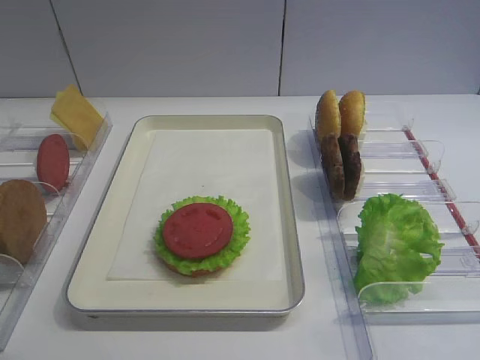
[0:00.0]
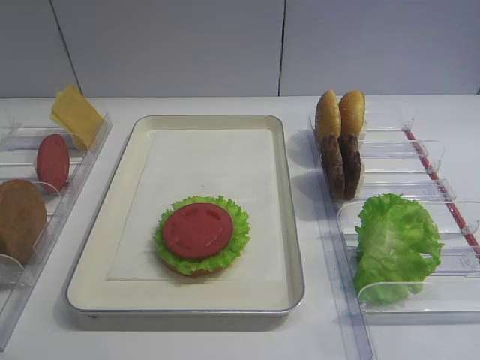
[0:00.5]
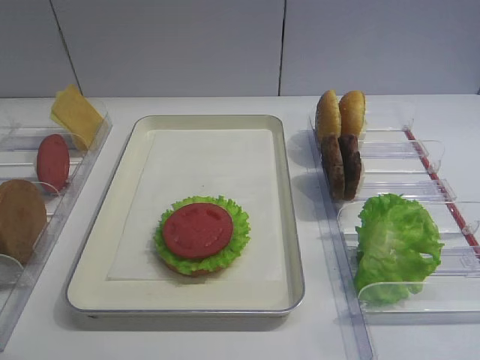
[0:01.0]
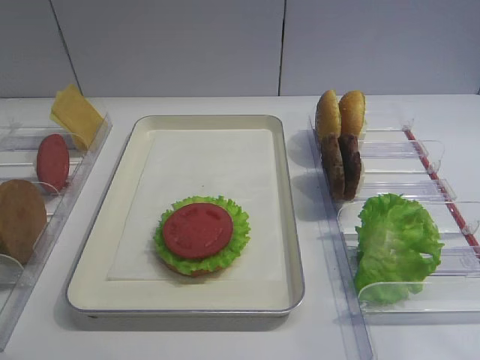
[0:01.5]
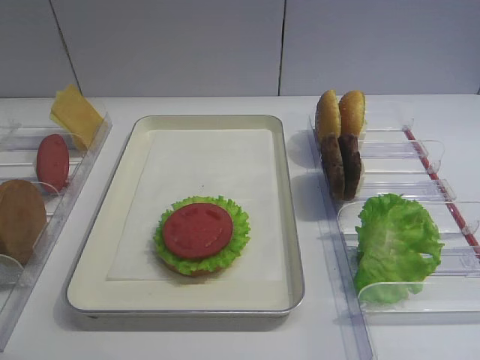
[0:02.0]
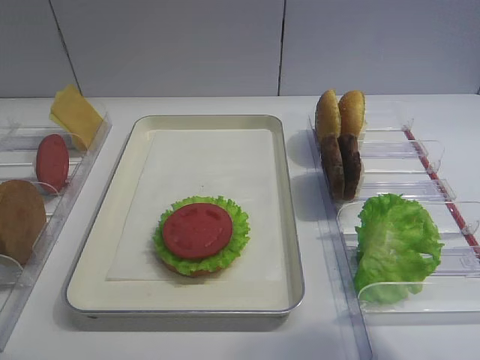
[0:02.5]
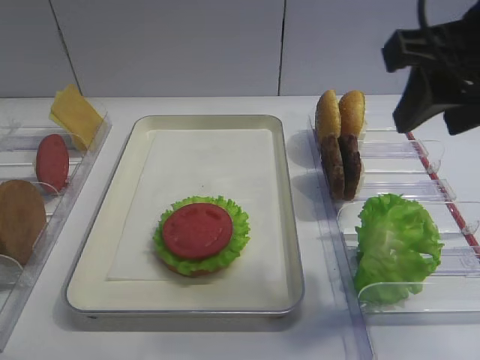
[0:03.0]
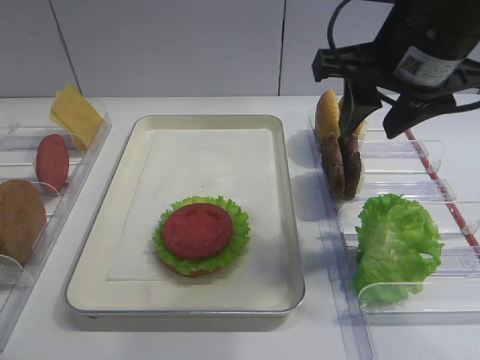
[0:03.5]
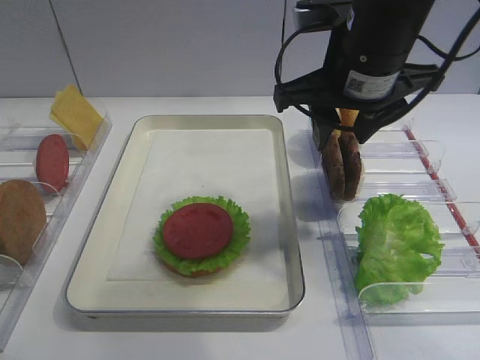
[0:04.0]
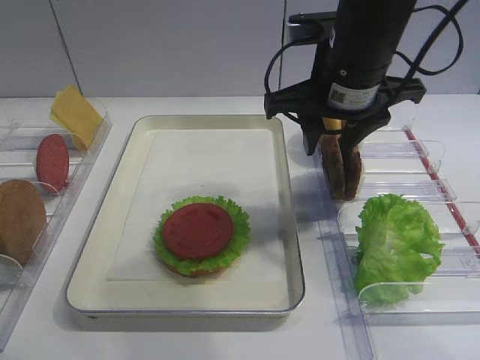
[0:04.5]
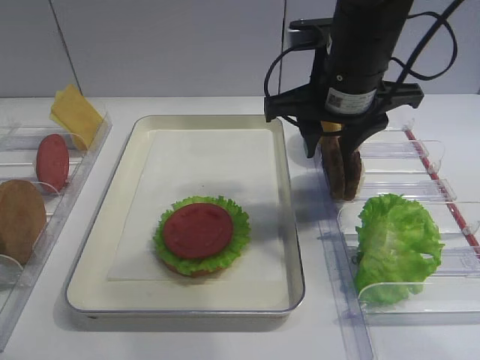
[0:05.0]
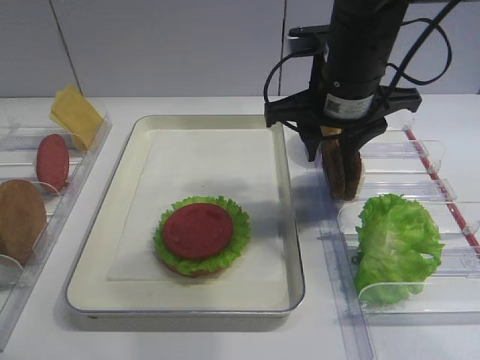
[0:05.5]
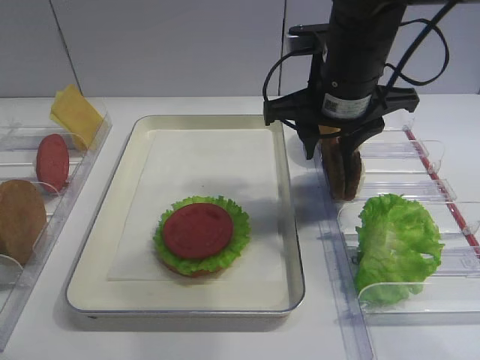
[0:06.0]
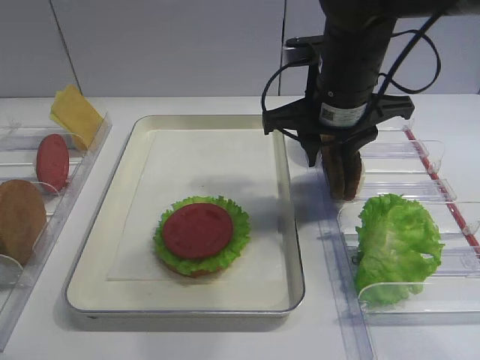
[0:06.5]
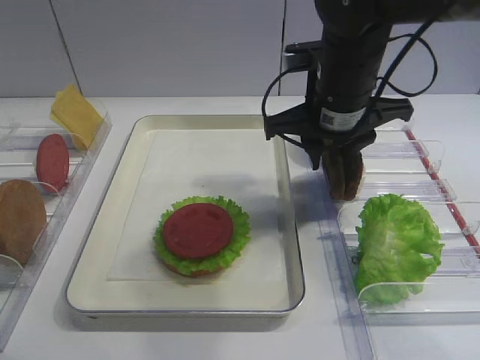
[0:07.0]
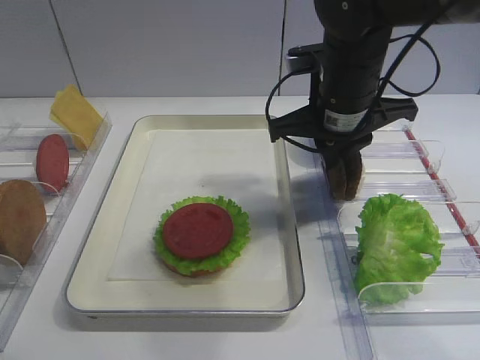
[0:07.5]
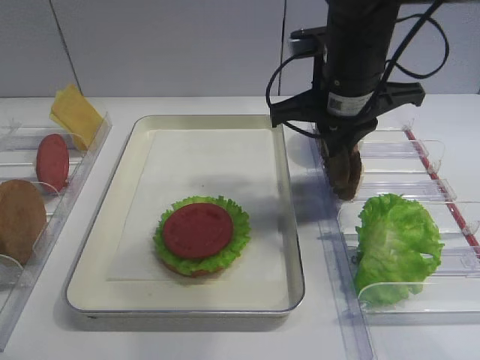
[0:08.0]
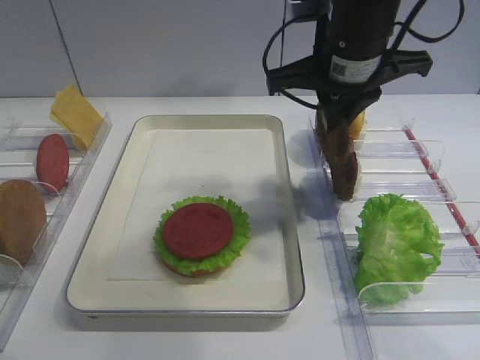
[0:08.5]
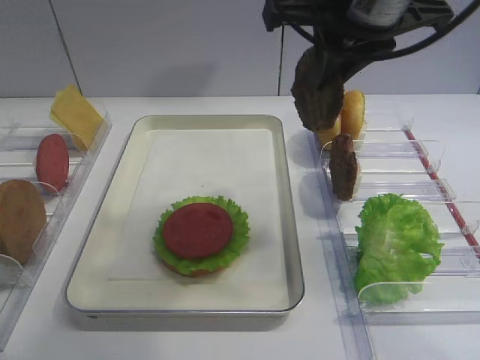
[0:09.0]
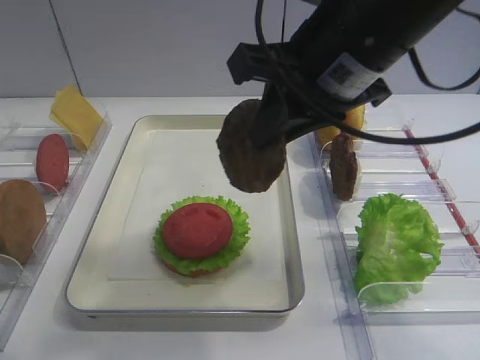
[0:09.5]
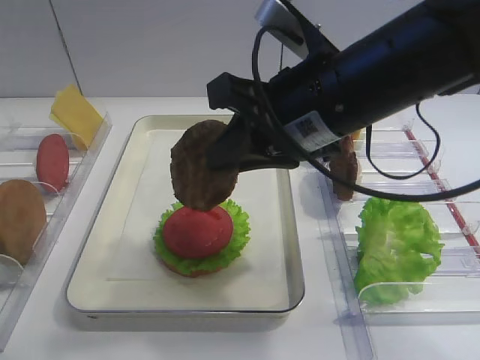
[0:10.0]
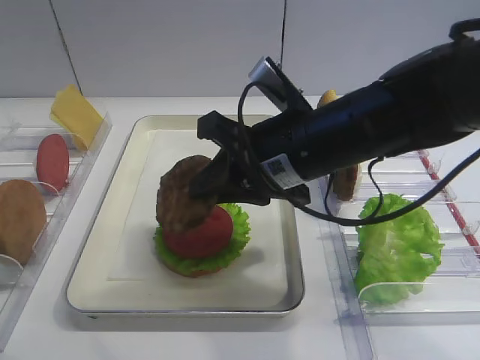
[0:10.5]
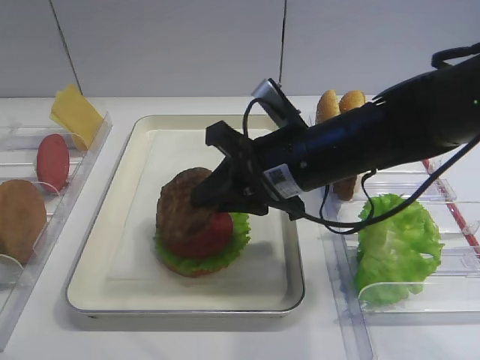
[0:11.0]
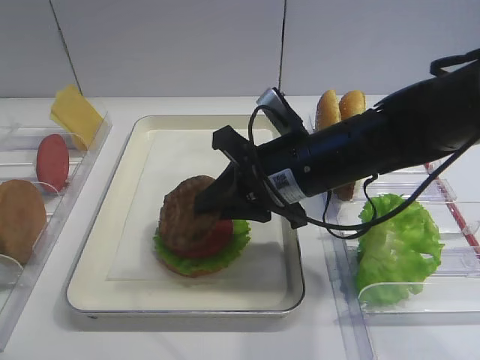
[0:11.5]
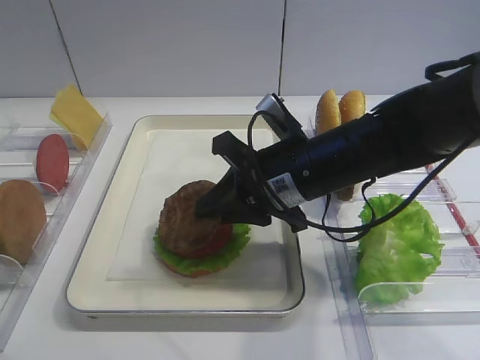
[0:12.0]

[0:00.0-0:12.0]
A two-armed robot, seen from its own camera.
Step, 0:00.0 to 0:09.0: Pick up the cutlet with the right gripper.
0:02.0 to 0:04.0: The right gripper shifts some 25 cm forward and to the left.
0:04.0 to 0:06.0: There are only small adjustments of the grippers.
0:06.0 to 0:08.0: The right gripper closes.
0:08.0 to 0:10.0: The right gripper travels backward by approximately 10 cm, and reaches roughly 10 cm upward, then returns.
0:10.0 to 0:12.0: The right gripper shifts about 10 cm downward.

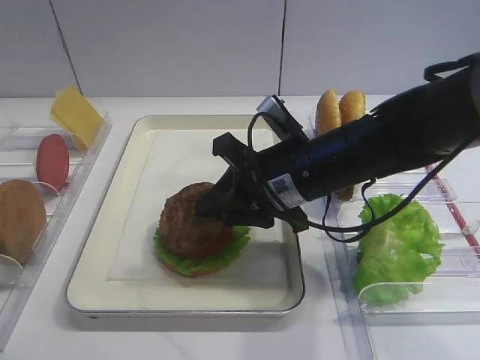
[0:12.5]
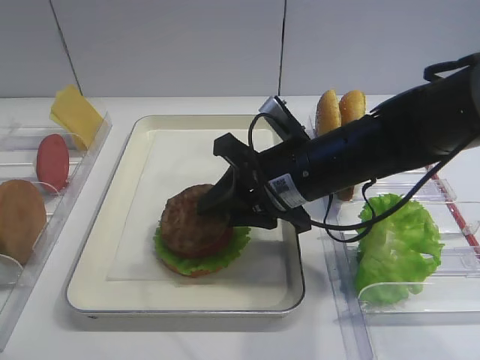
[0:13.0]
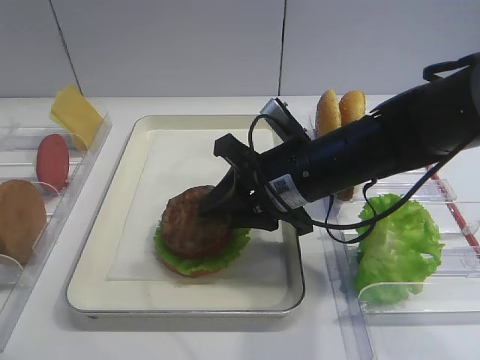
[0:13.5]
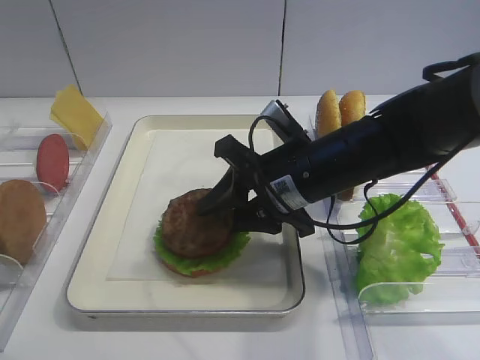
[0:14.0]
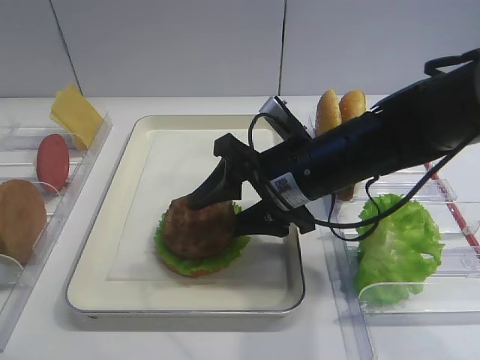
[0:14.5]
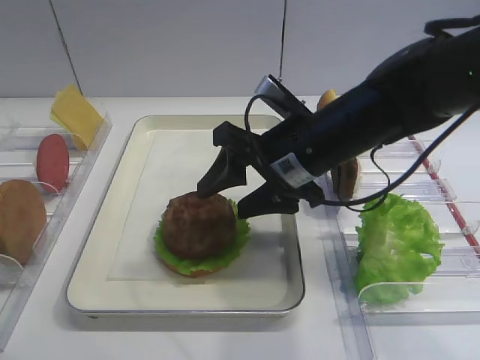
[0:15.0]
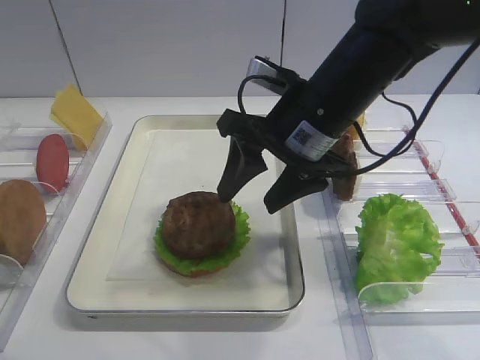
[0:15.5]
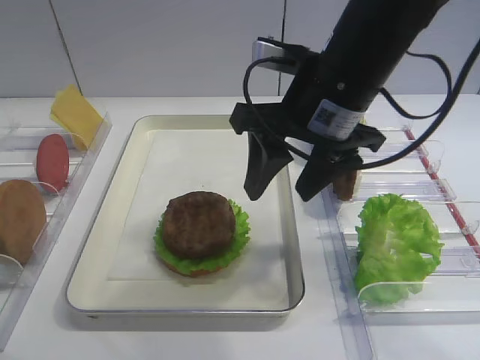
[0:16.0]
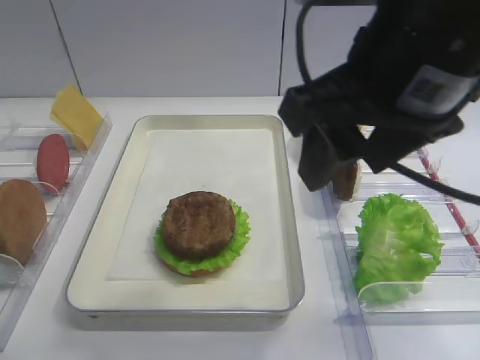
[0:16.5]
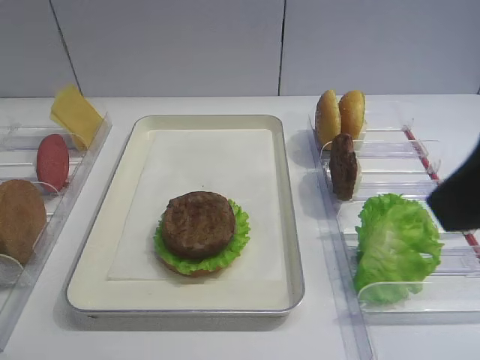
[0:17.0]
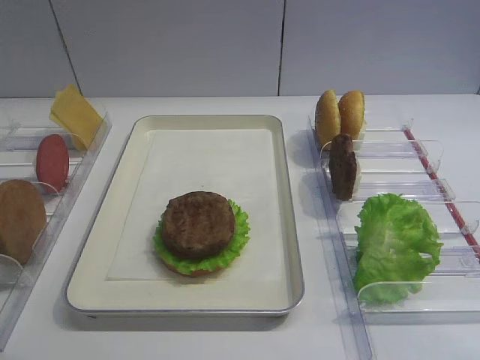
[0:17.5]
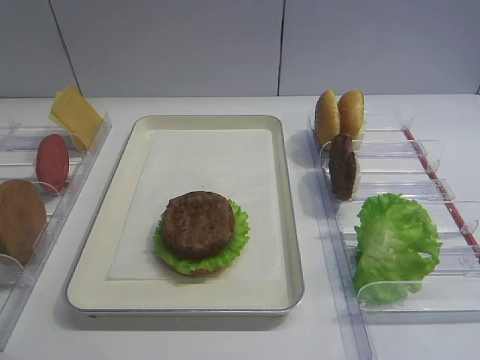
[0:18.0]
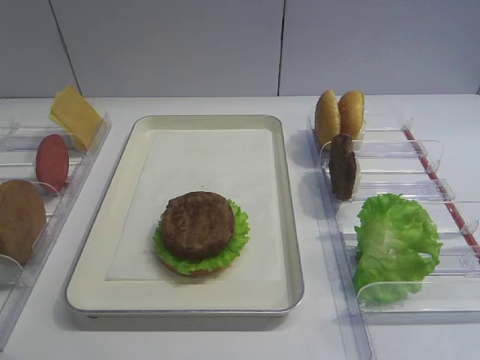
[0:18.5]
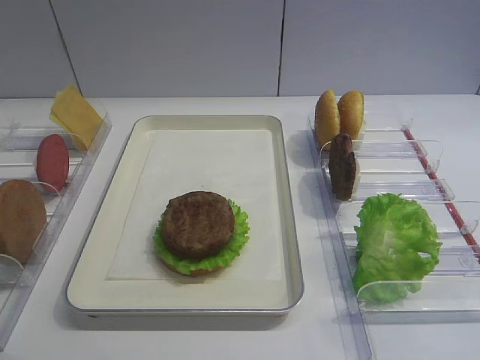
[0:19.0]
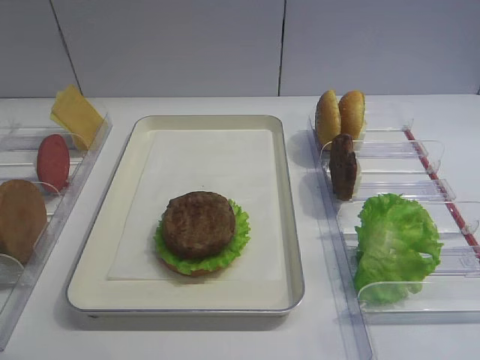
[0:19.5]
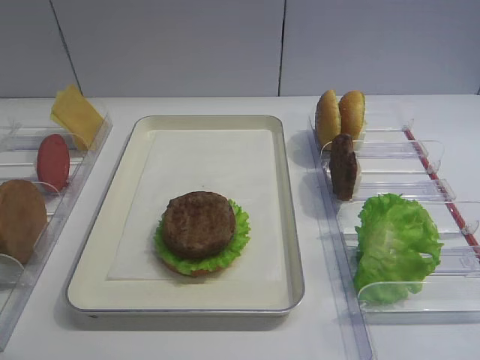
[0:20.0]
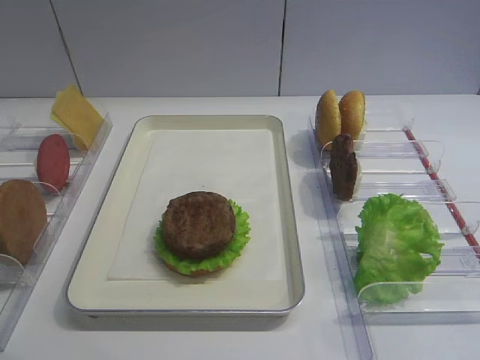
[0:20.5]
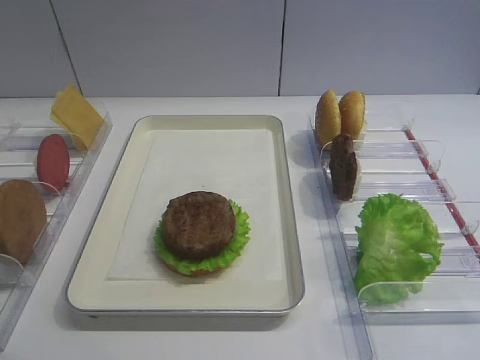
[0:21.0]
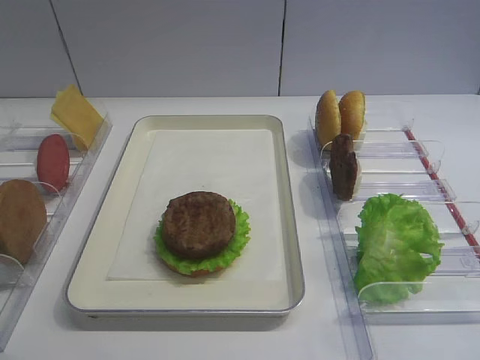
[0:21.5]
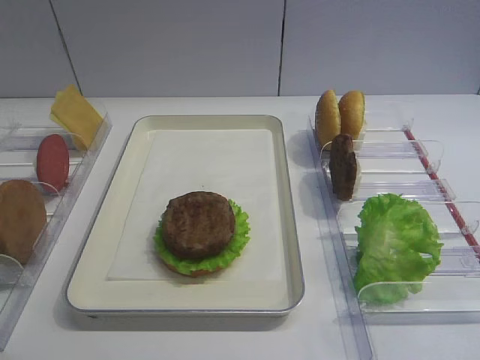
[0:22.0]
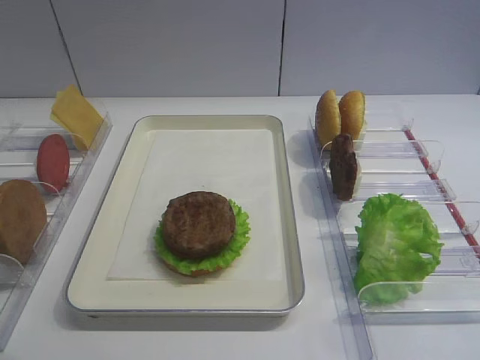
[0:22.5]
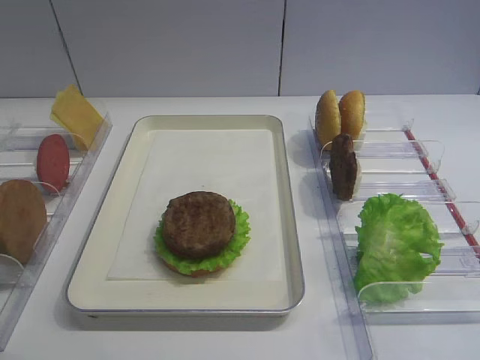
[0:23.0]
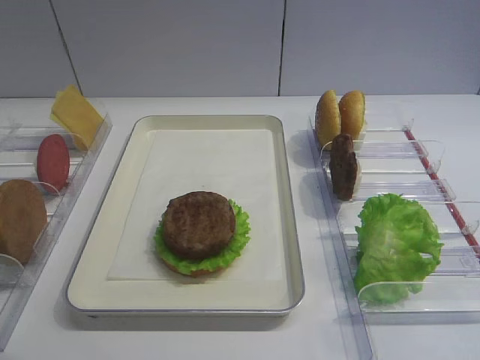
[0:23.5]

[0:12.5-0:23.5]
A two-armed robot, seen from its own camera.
Step, 0:12.5 to 0:16.0: Place the cutlet on the lettuce leaf with the right gripper.
0:12.5 to 0:14.5: The right gripper opens.
0:14.5 to 0:16.0: The right gripper moves upward, some 10 cm.
0:16.0 to 0:18.0: The right gripper shifts approximately 35 cm backward and to the right.
0:20.0 to 0:23.5: Both grippers stay put.
